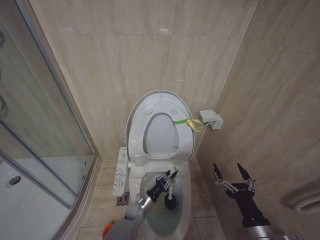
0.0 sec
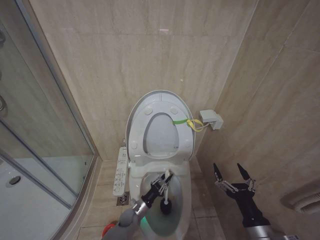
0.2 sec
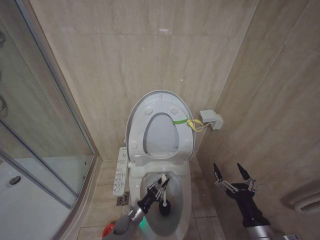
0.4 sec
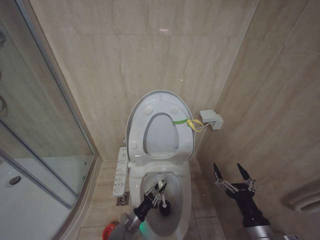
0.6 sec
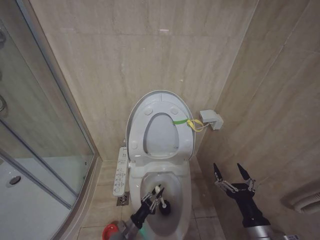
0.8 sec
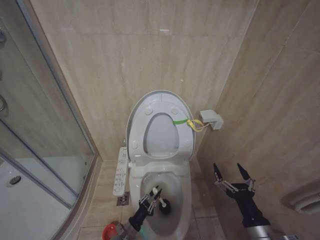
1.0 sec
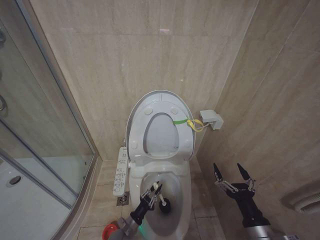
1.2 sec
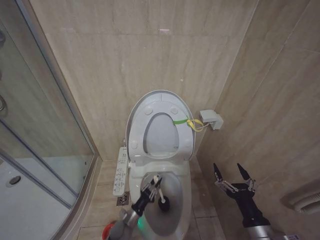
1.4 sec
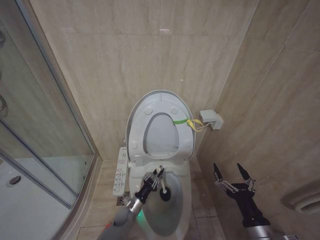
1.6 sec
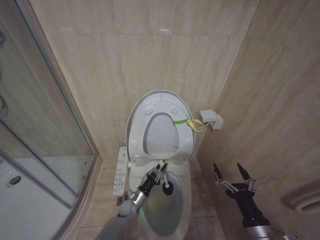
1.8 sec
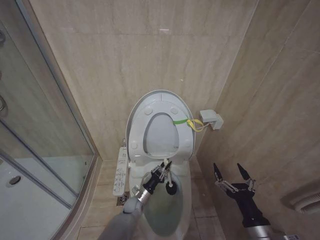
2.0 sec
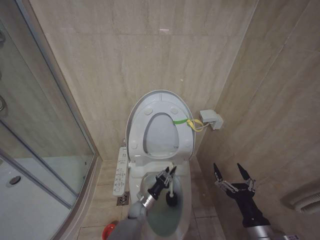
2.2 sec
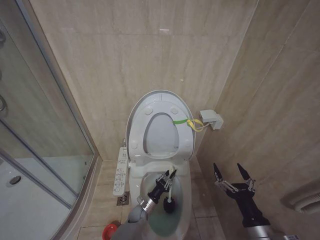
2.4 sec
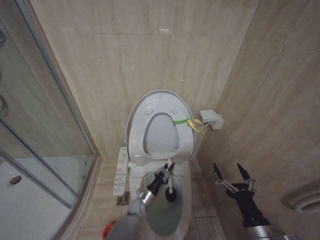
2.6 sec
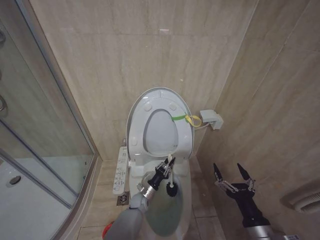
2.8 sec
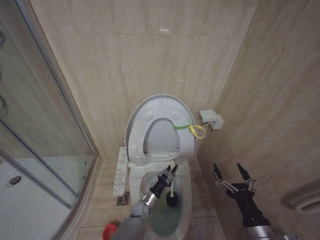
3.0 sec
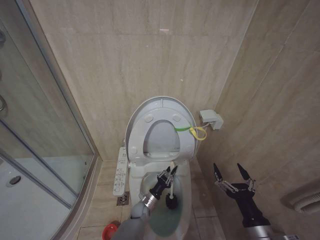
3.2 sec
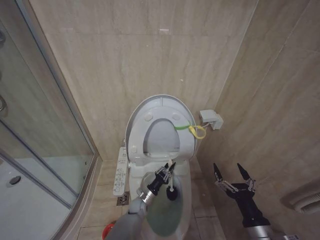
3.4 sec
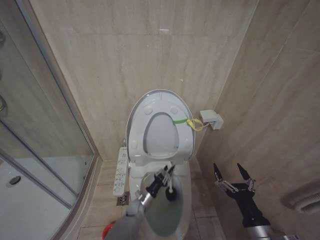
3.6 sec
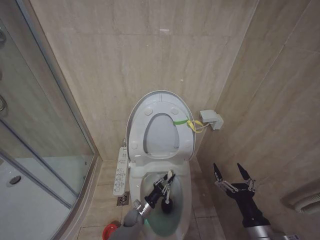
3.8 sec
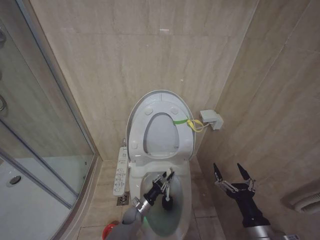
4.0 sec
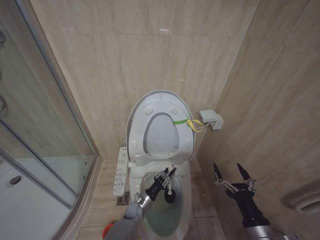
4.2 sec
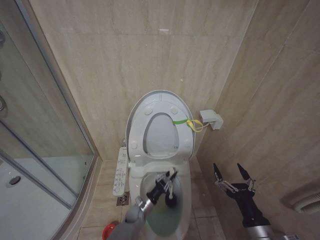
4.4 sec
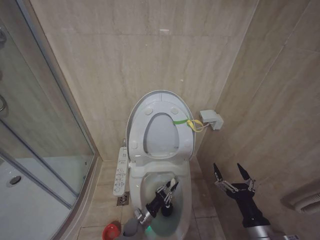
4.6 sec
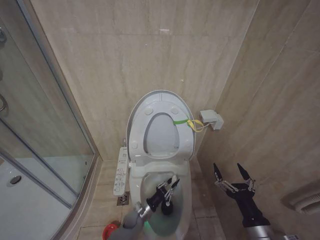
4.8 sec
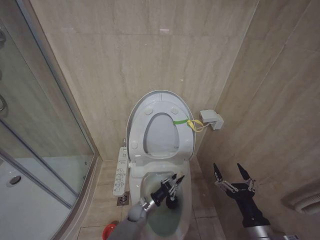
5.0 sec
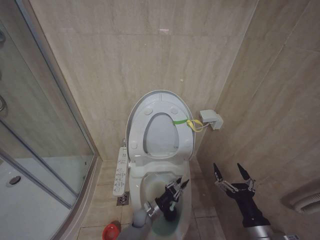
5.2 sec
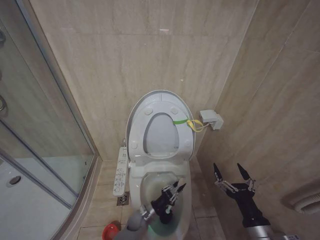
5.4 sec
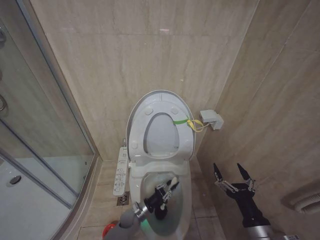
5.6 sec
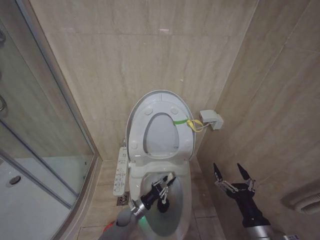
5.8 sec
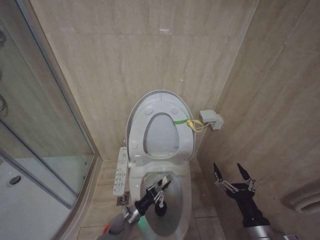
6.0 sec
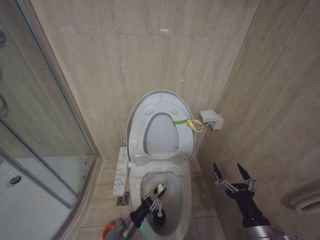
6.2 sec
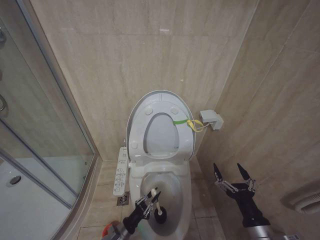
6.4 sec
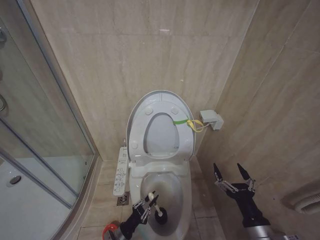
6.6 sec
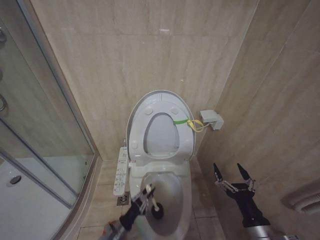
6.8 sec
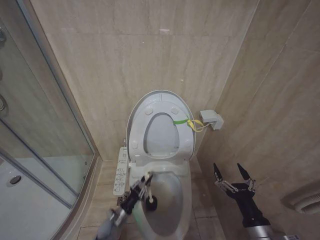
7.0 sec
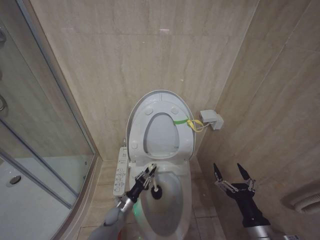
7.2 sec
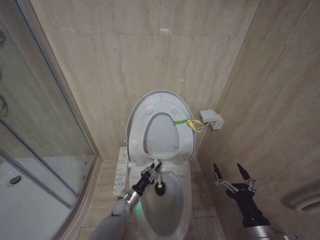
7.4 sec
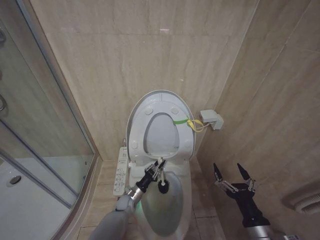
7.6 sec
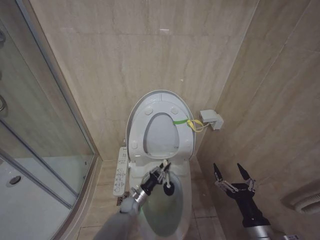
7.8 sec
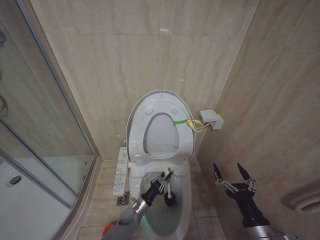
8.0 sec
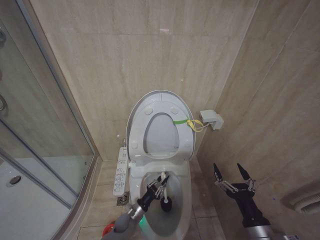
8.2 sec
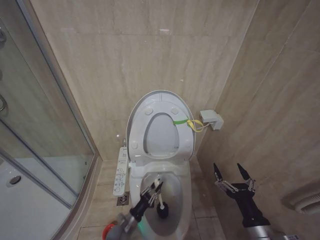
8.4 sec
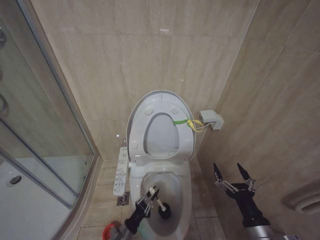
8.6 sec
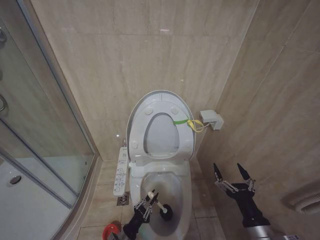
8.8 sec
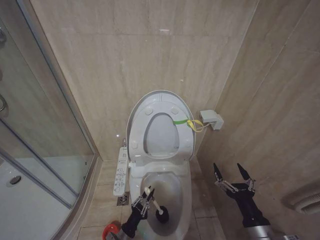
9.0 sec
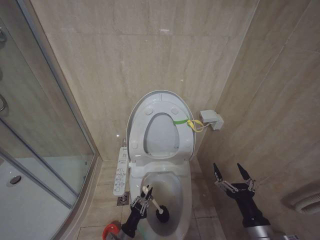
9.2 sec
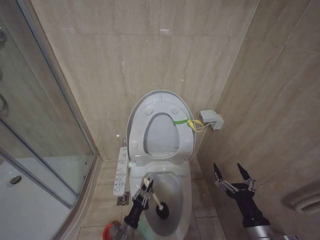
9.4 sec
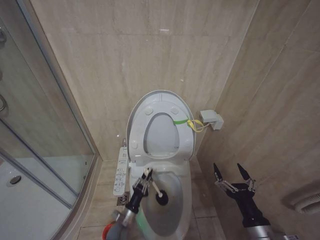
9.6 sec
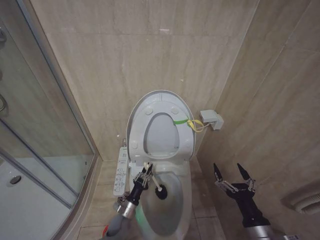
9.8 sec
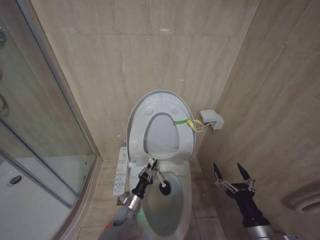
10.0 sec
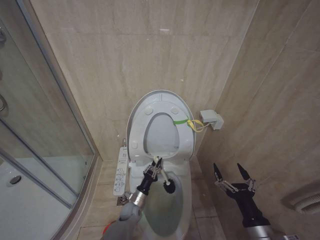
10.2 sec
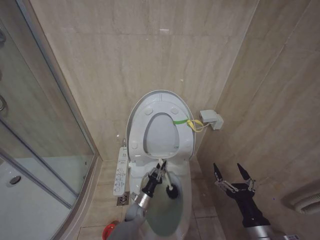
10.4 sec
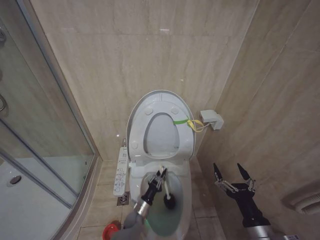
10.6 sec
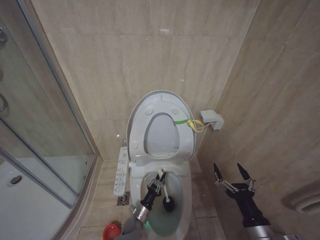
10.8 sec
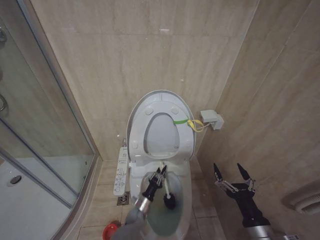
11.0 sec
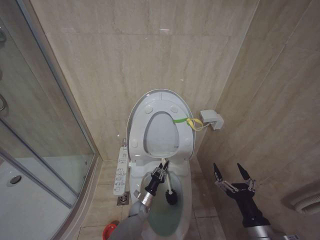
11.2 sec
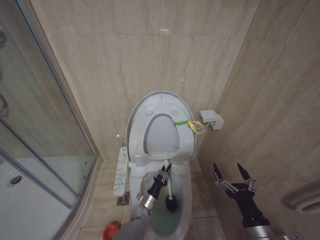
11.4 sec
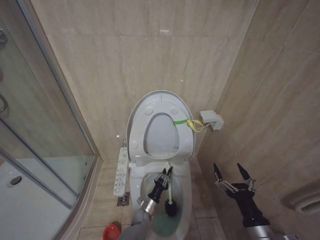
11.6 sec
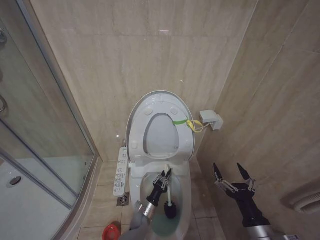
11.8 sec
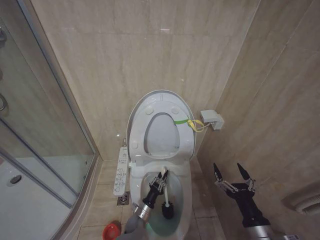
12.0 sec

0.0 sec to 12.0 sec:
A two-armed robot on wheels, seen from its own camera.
Task of the whole recording: Open the toilet lid, clean the toilet bowl with a toilet brush, close the toilet lid, and flush.
0.0 sec to 1.6 sec: The left gripper travels to the left and backward by some 10 cm.
1.6 sec to 3.0 sec: The left gripper goes about 10 cm to the right and forward.
4.4 sec to 6.0 sec: The left gripper travels to the left by some 5 cm.
6.0 sec to 7.6 sec: The left gripper shifts approximately 5 cm forward.
7.6 sec to 9.0 sec: The left gripper travels backward by about 20 cm.
9.0 sec to 10.4 sec: The left gripper heads forward and to the right, covering about 15 cm.
10.4 sec to 12.0 sec: The left gripper moves forward and backward over about 5 cm, changing direction 2 times.

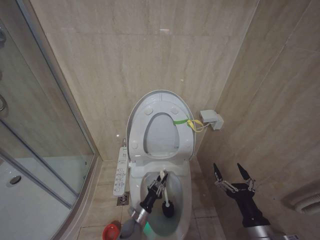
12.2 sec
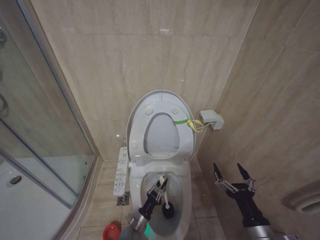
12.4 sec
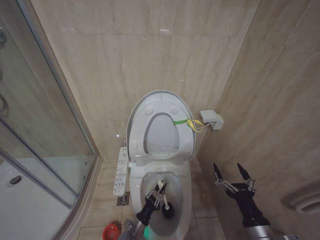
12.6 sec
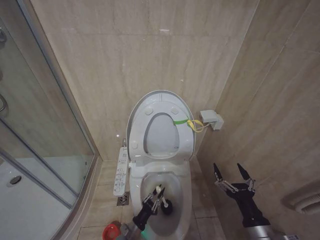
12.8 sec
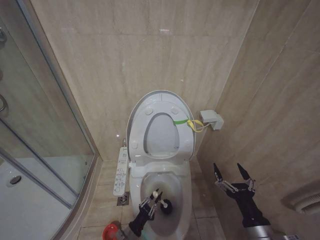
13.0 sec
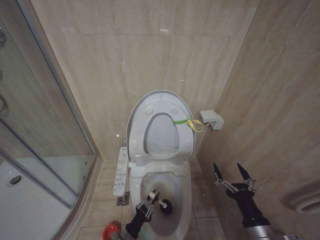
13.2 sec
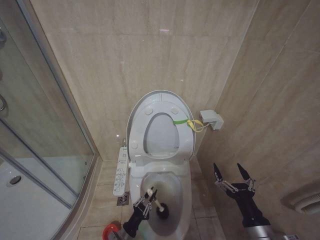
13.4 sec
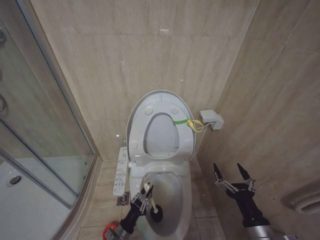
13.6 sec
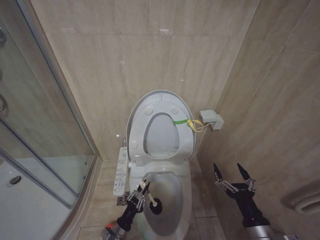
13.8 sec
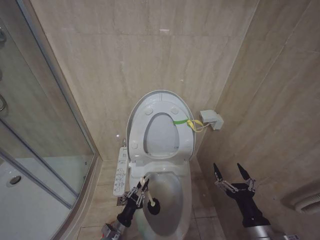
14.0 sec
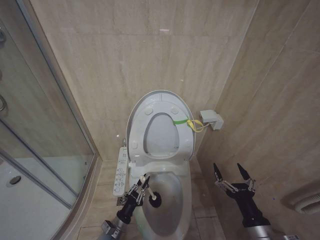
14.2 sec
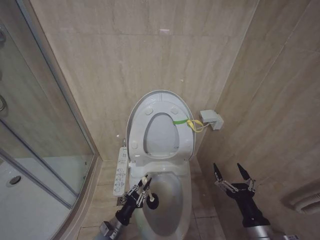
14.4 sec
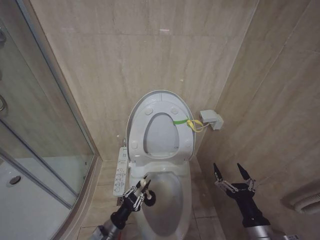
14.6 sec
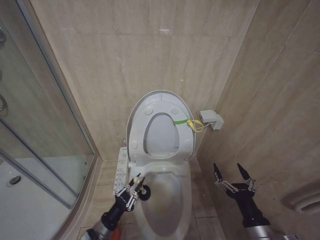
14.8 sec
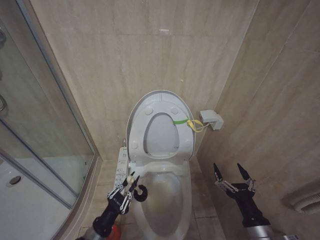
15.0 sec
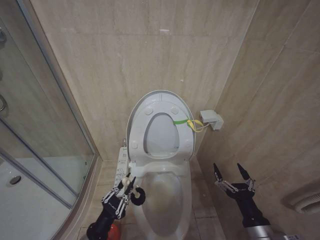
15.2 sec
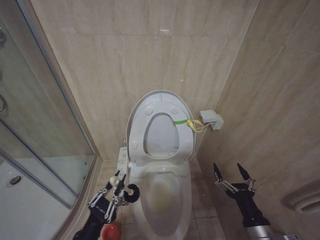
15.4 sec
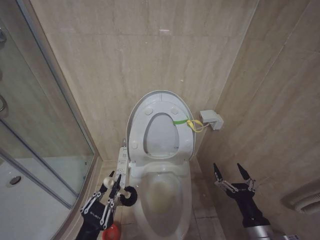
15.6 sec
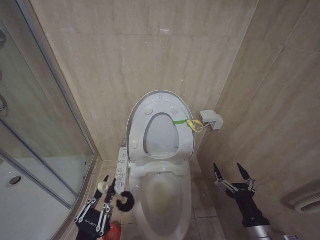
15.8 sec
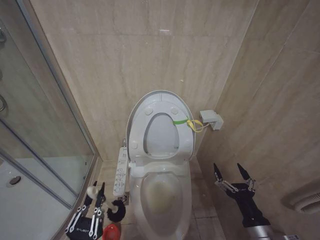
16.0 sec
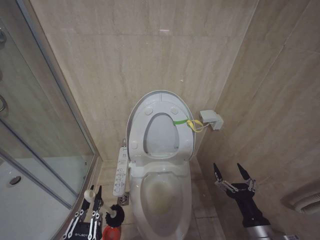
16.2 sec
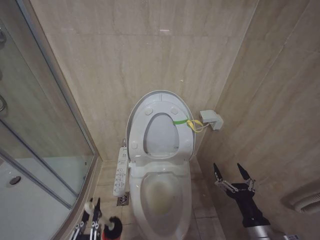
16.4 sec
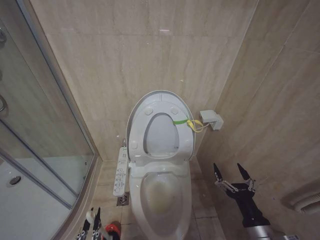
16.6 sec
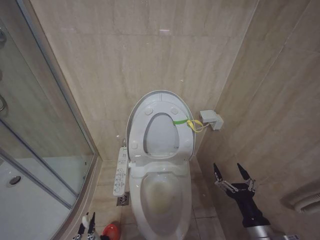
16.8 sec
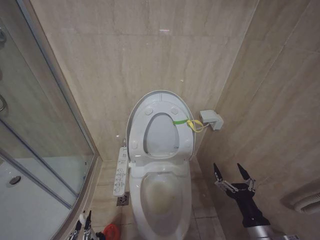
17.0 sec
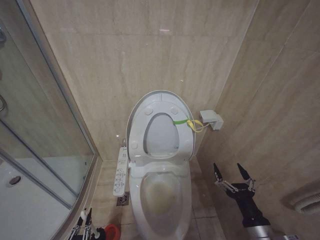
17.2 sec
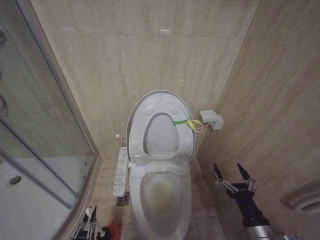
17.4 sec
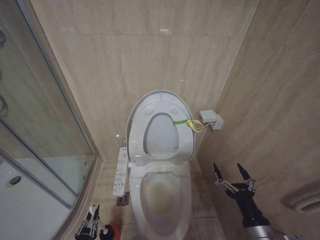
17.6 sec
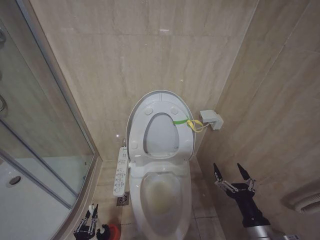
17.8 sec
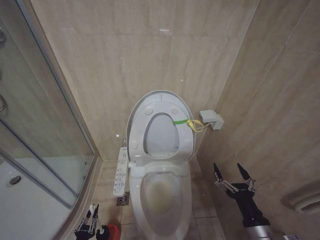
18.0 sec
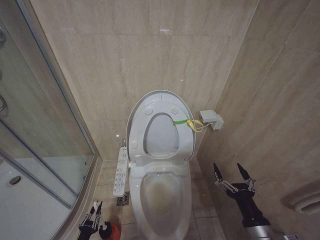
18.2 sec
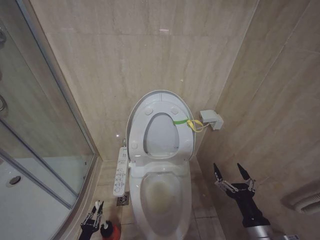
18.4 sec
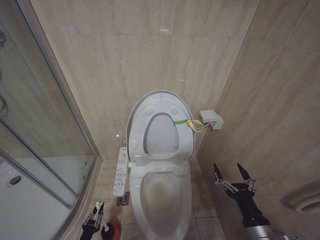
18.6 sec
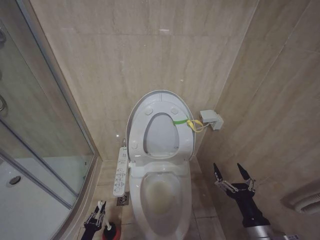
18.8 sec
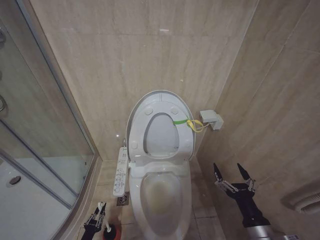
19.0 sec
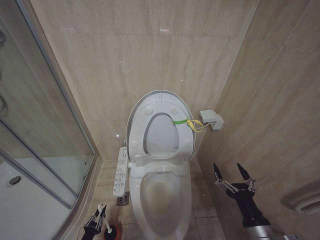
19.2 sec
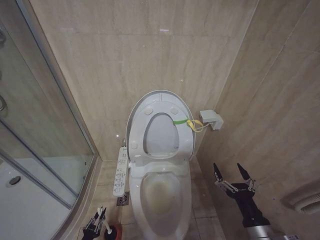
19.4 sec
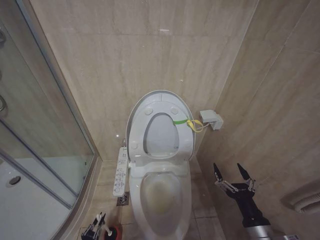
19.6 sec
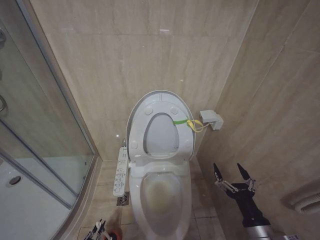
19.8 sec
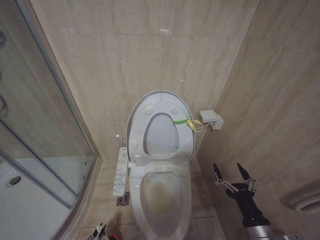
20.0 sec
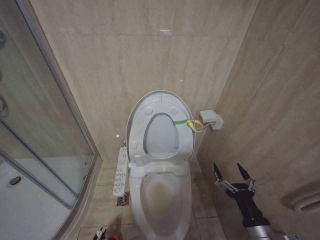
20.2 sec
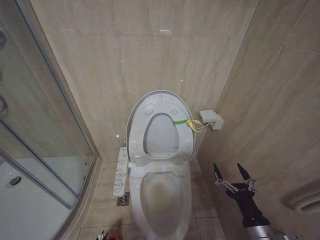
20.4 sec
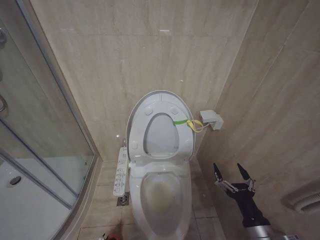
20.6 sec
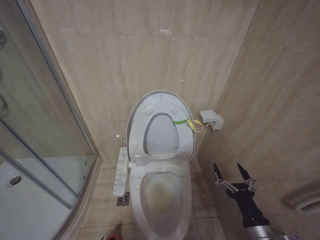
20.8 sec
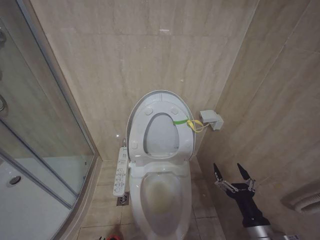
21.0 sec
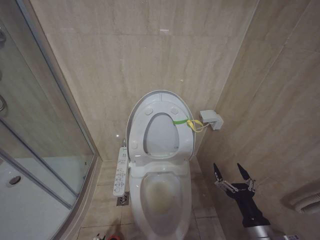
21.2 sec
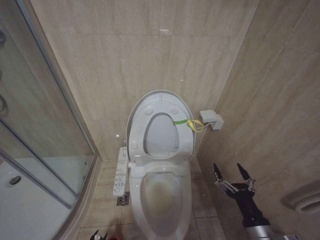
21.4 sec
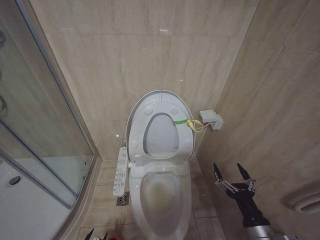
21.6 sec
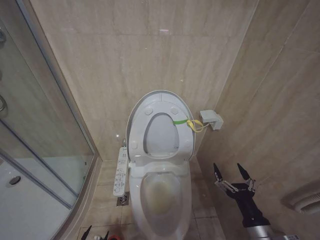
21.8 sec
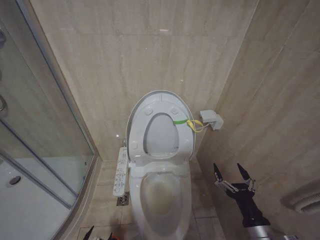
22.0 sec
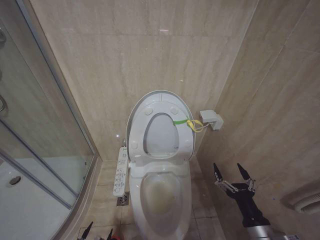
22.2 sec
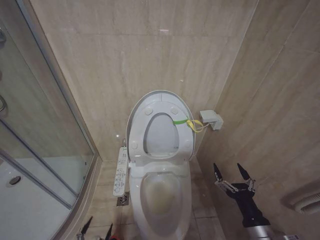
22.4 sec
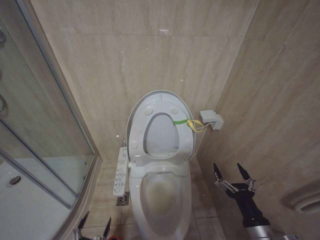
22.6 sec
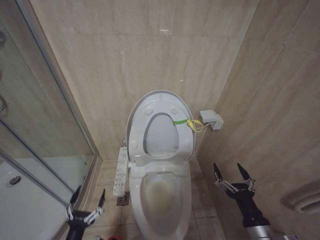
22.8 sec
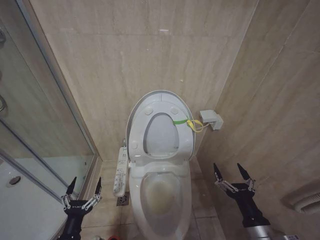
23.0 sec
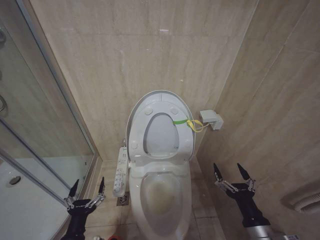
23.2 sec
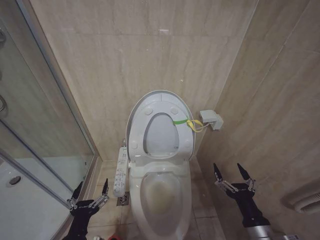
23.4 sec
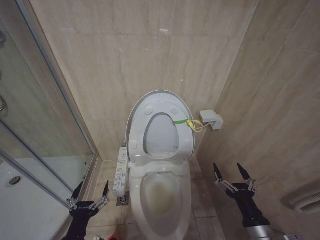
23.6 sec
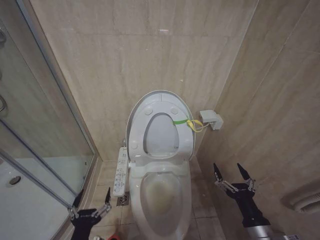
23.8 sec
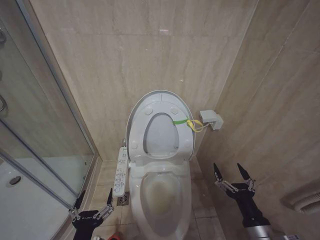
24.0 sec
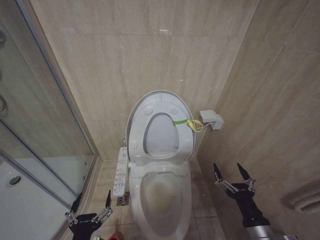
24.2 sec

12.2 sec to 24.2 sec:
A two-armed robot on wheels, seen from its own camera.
Task of the whole recording: Open the toilet lid, clean the toilet bowl with a toilet brush, close the toilet lid, and flush.
12.2 sec to 13.8 sec: The left gripper is displaced to the left and backward by roughly 10 cm.
13.8 sec to 15.2 sec: The left gripper is displaced upward by roughly 15 cm.
15.2 sec to 16.6 sec: The left gripper travels backward by approximately 15 cm.
16.6 sec to 18.2 sec: The left gripper travels downward, to the left and forward by approximately 30 cm.
18.2 sec to 19.8 sec: The left gripper shifts some 5 cm downward.
22.6 sec to 24.2 sec: The left gripper heads upward and to the right, covering approximately 20 cm.
